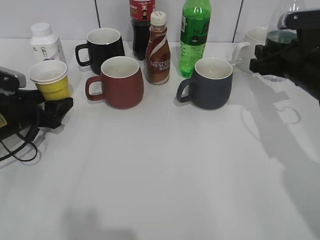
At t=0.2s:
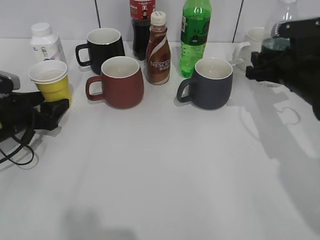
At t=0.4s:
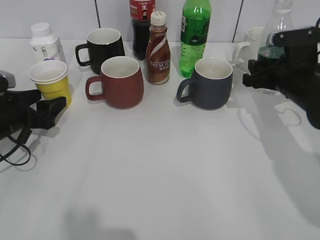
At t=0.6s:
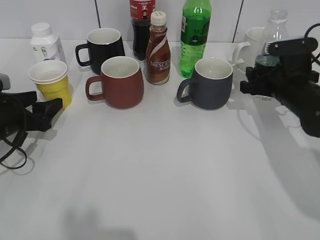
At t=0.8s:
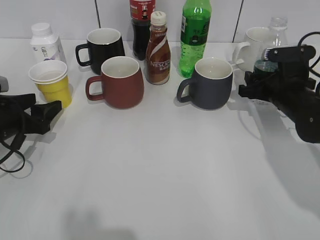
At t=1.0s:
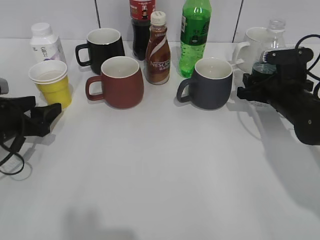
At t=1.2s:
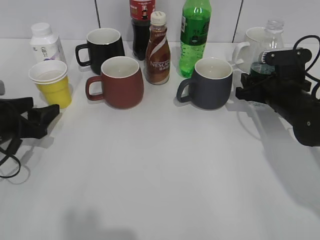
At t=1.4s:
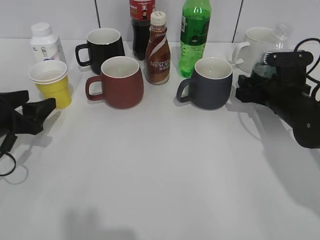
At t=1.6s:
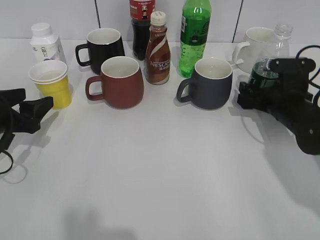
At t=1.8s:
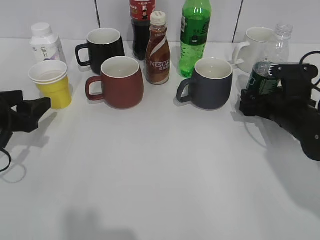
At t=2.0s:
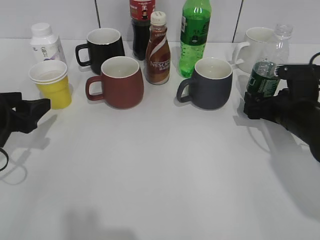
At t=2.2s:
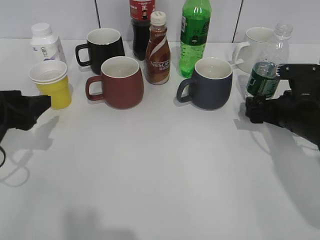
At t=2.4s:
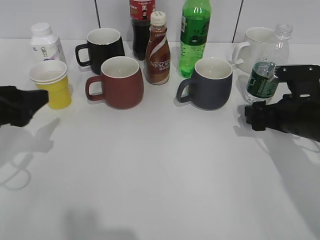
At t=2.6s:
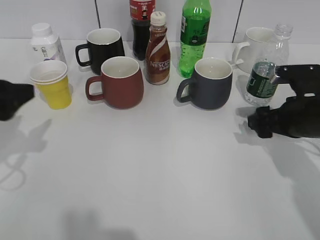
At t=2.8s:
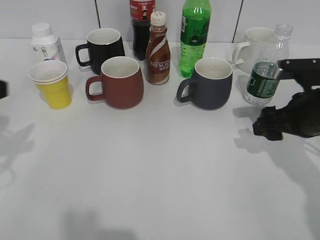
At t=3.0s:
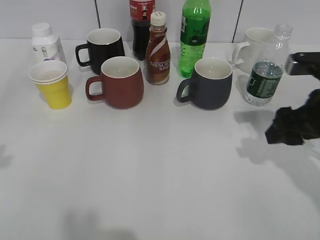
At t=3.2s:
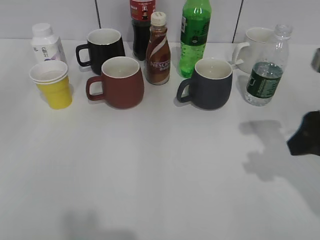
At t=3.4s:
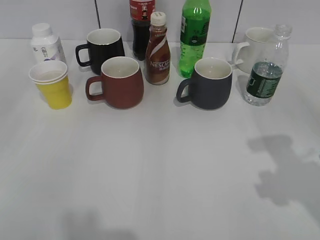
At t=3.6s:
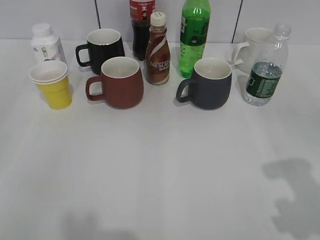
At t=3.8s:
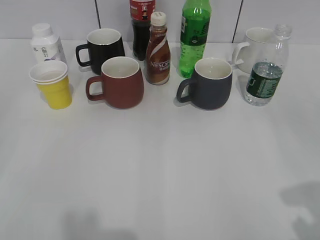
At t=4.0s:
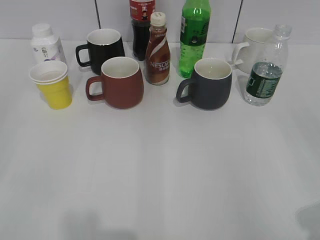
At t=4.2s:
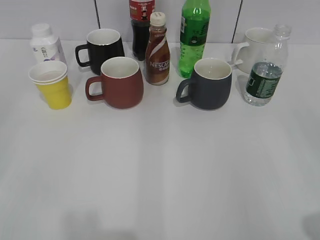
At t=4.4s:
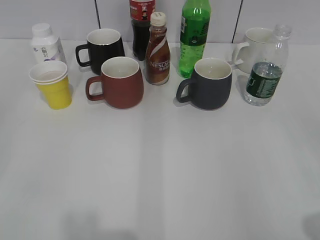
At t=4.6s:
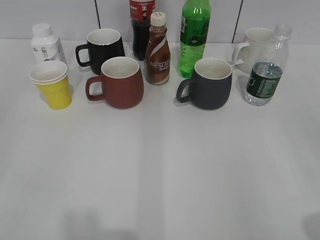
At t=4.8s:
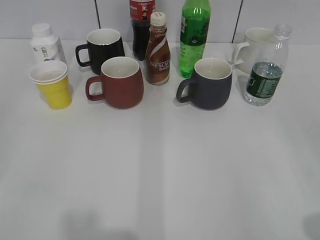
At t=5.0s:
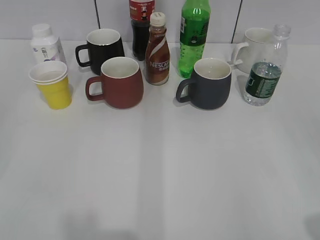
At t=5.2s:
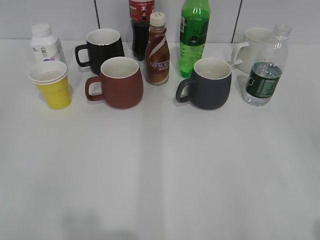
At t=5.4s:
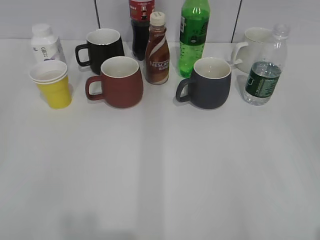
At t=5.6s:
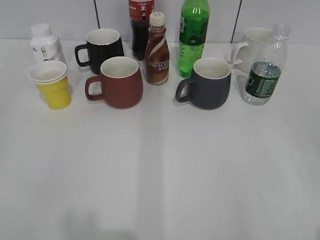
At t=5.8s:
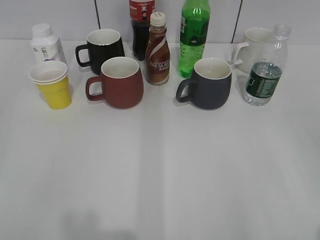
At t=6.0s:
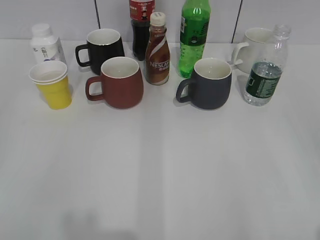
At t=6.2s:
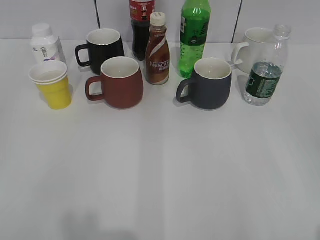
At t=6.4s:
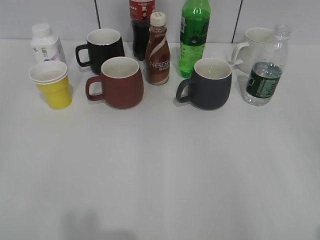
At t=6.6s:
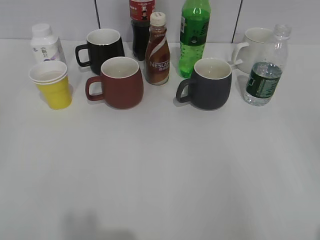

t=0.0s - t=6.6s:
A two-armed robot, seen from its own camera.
Step, t=0.0s - t=2.0s: Place the water bottle on the table with right gripper.
t=0.0s - t=1.6s: The left gripper goes about 5 cm backward. Meanwhile the right gripper moves downward, about 10 cm, and opens.
t=1.6s - t=3.2s: Both grippers move upward and backward, approximately 20 cm.
t=3.2s - t=5.0s: The left gripper goes some 10 cm backward. The right gripper is displaced backward by about 20 cm.
